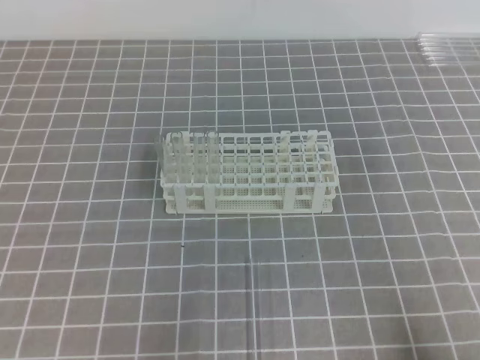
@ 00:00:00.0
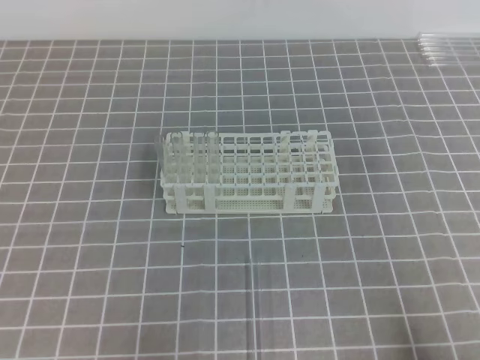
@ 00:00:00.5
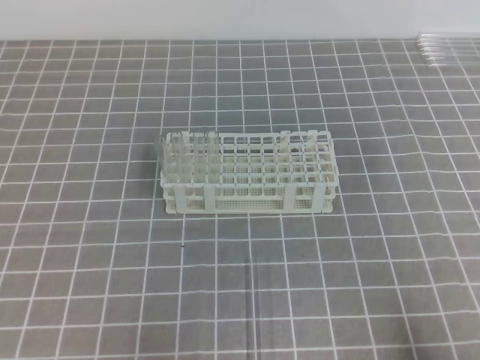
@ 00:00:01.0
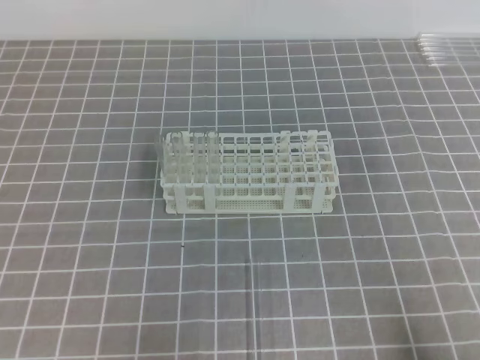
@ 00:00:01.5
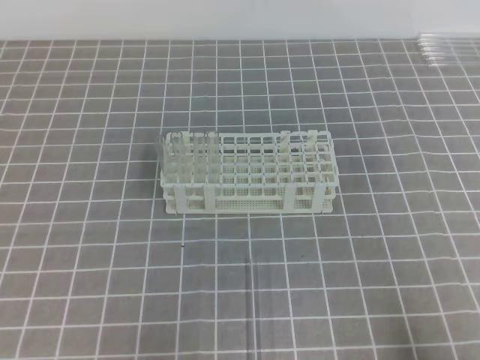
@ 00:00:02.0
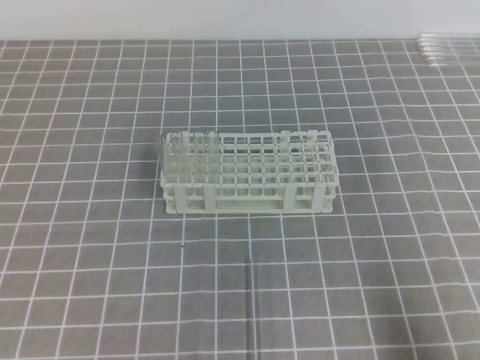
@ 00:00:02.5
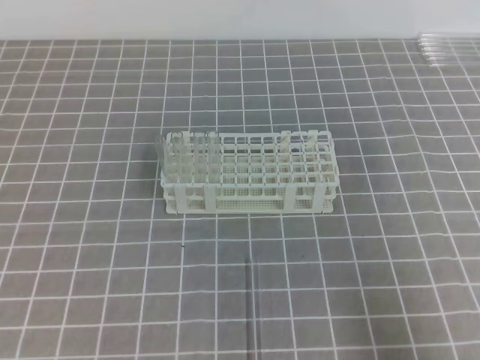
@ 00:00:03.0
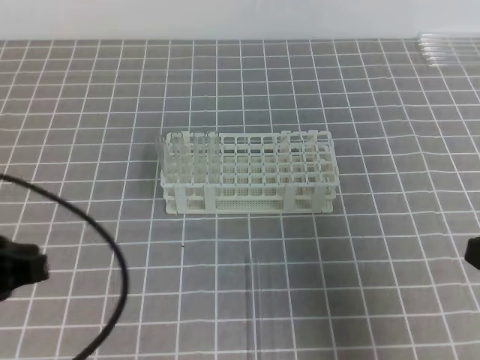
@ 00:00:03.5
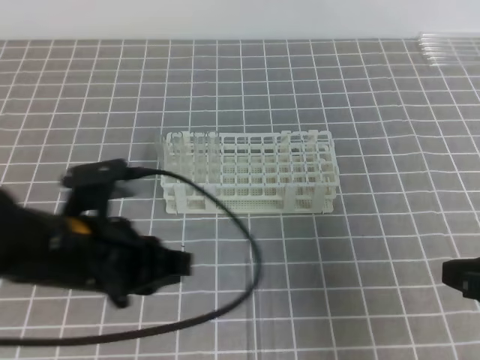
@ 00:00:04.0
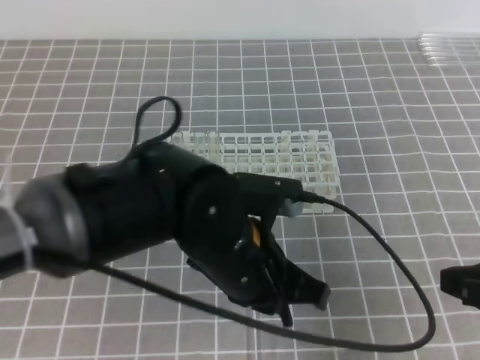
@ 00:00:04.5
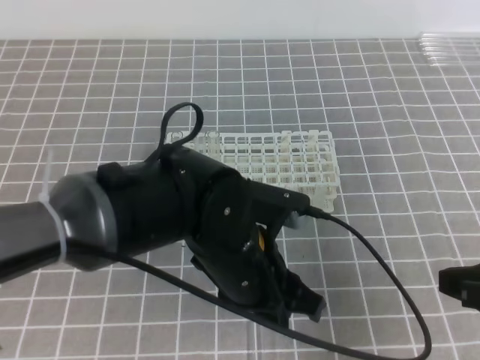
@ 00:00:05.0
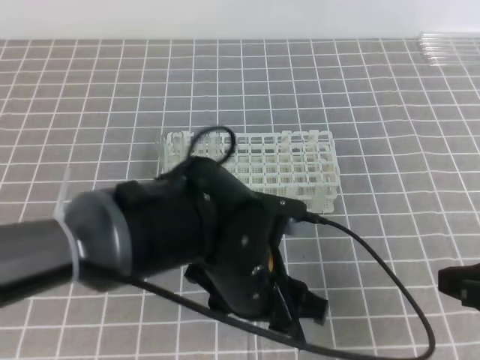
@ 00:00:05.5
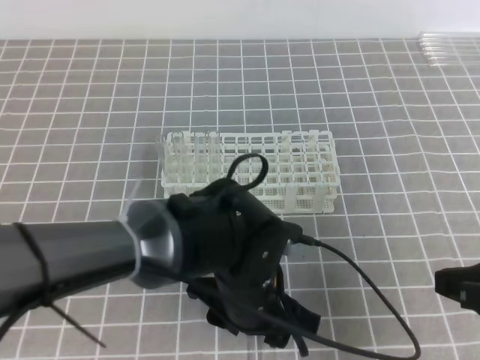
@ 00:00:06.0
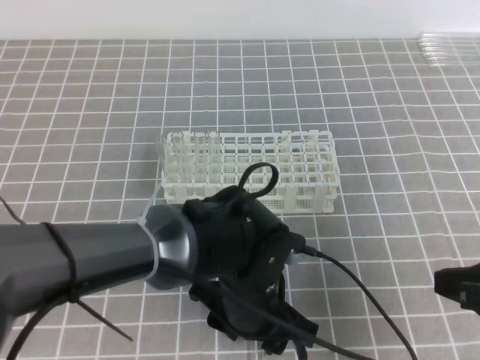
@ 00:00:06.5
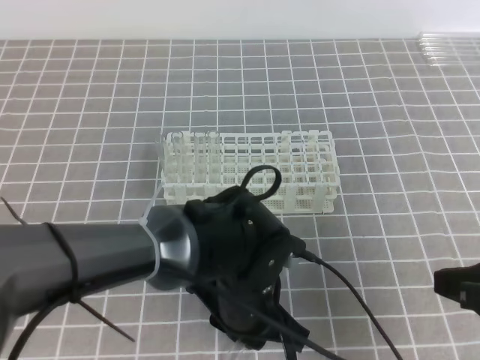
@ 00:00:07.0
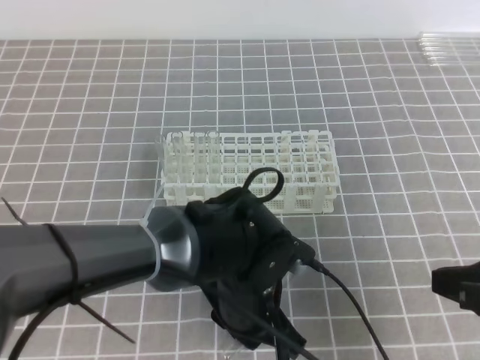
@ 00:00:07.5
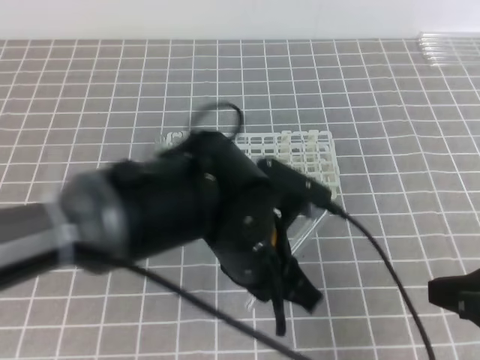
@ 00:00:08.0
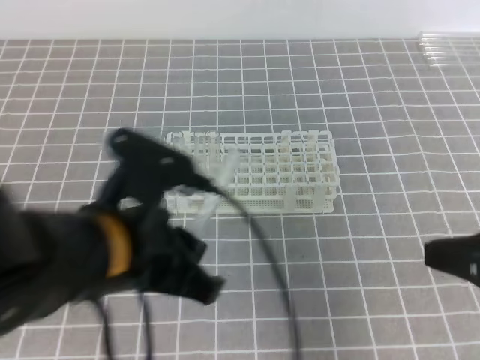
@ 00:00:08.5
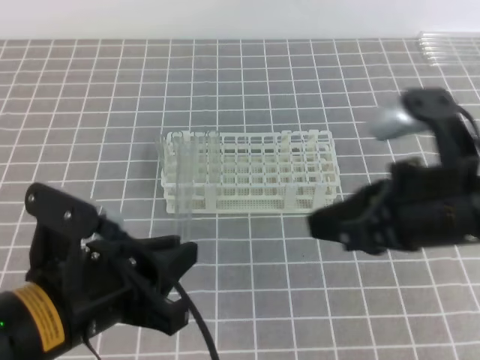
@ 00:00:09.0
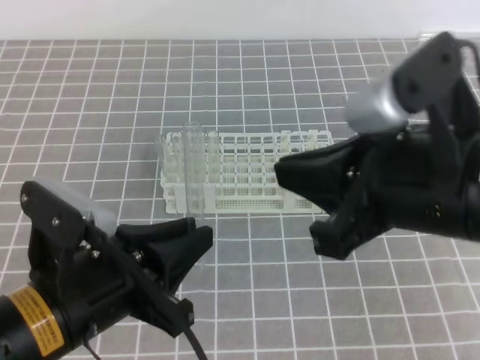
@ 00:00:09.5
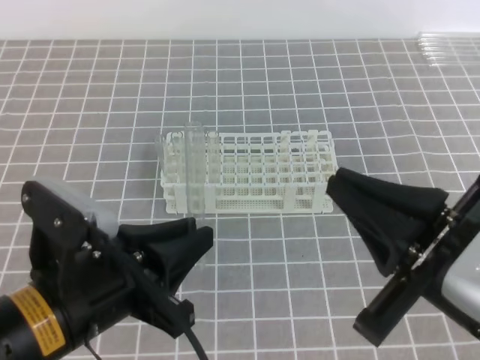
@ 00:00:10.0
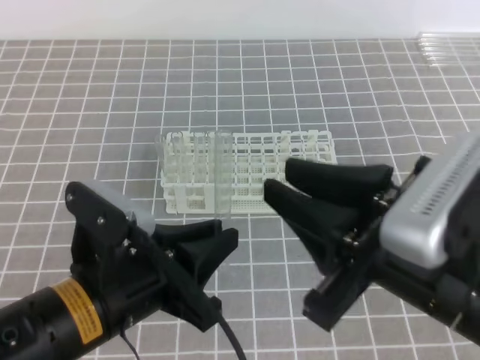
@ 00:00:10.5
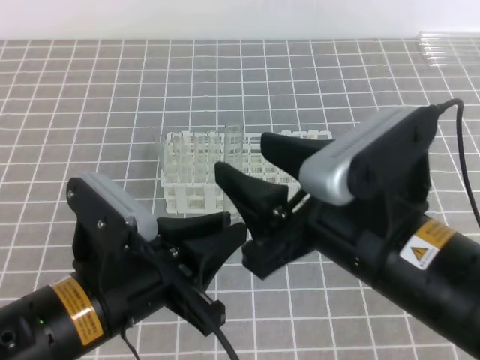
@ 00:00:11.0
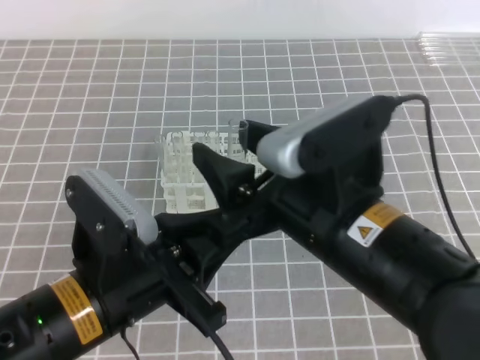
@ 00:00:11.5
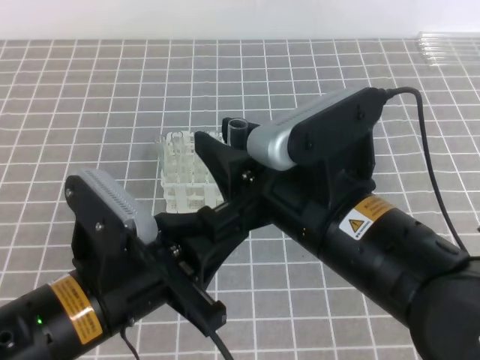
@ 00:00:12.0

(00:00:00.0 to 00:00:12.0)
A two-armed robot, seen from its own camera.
00:00:02.0 - 00:00:04.0: The left gripper shifts some 20 cm forward, to the right and upward, while the right gripper heads forward and upward, covering approximately 10 cm.
00:00:04.0 - 00:00:06.0: The left gripper is displaced to the right and downward by approximately 15 cm, and opens.
00:00:06.0 - 00:00:08.0: The left gripper is displaced upward by approximately 5 cm, and closes.
00:00:08.0 - 00:00:10.0: The left gripper goes roughly 15 cm to the left and backward. The right gripper shifts about 10 cm to the left and upward.
00:00:10.0 - 00:00:12.0: The right gripper moves to the left and forward, approximately 10 cm, and opens.

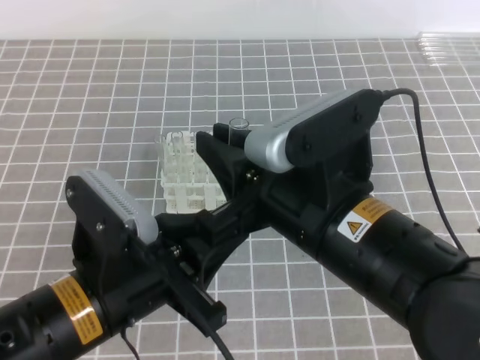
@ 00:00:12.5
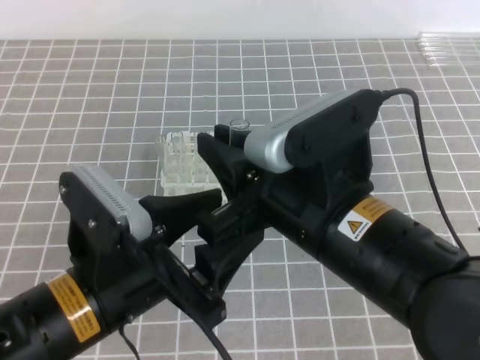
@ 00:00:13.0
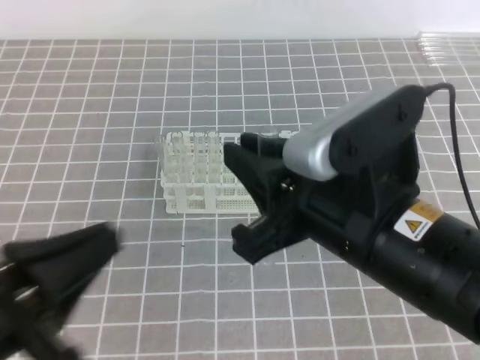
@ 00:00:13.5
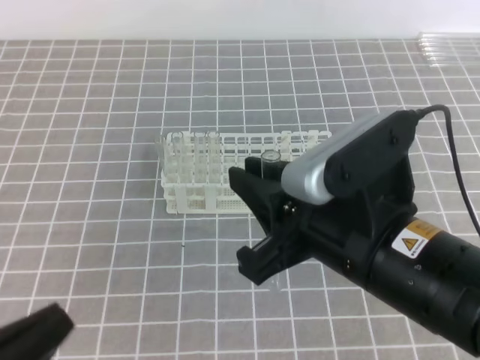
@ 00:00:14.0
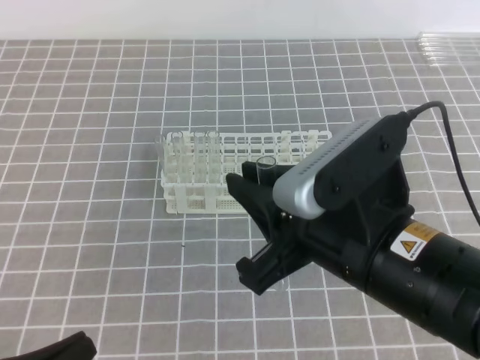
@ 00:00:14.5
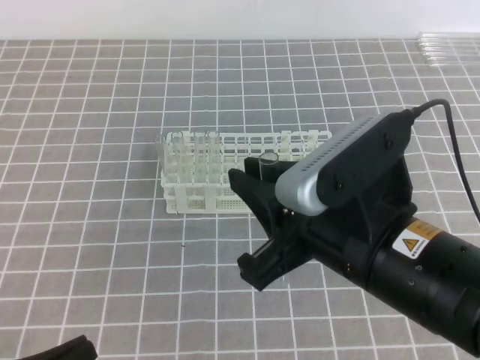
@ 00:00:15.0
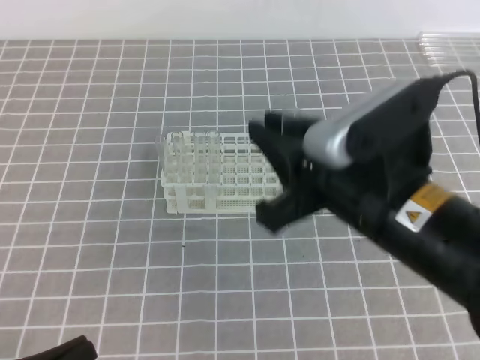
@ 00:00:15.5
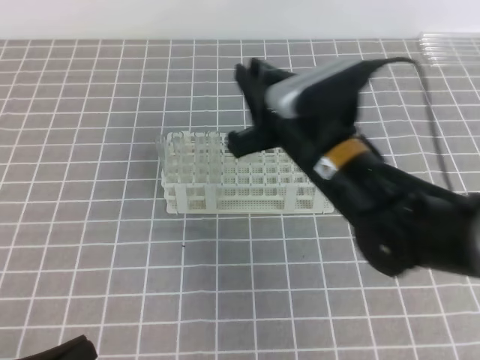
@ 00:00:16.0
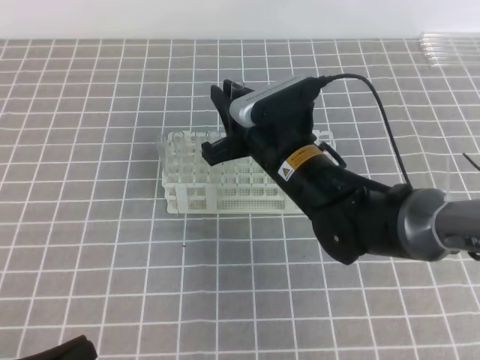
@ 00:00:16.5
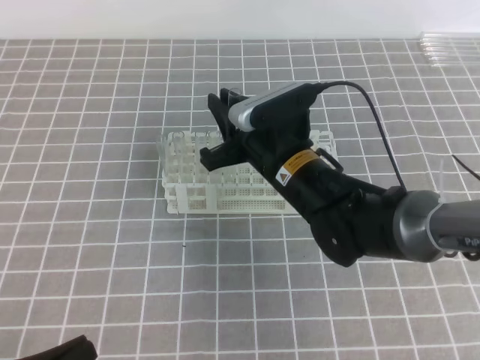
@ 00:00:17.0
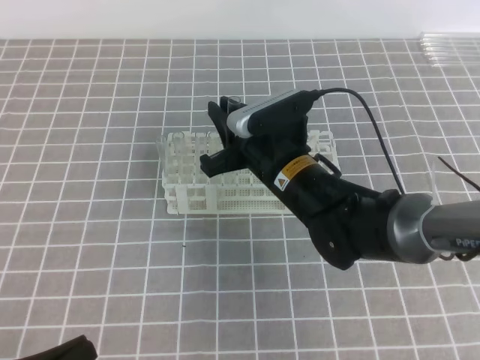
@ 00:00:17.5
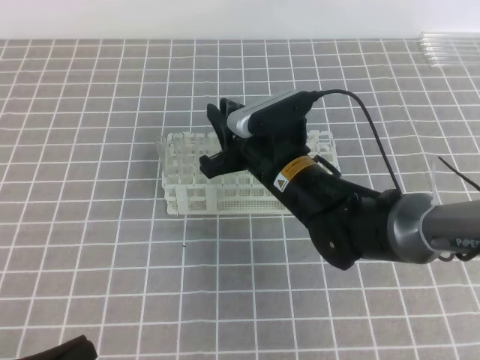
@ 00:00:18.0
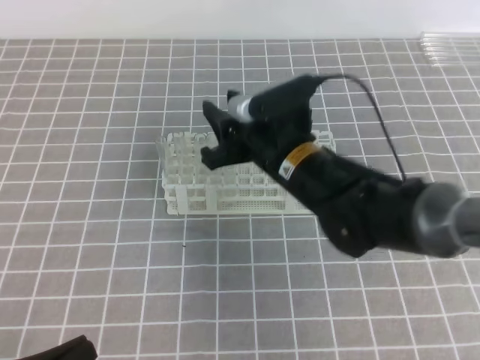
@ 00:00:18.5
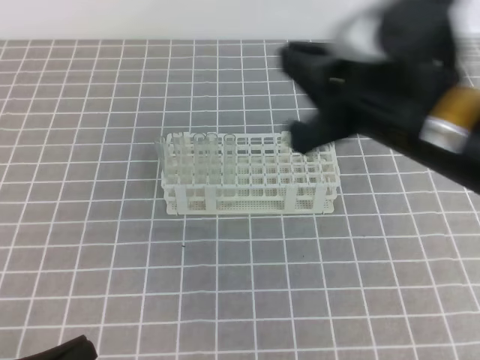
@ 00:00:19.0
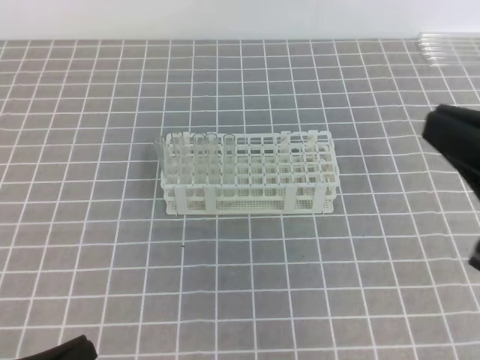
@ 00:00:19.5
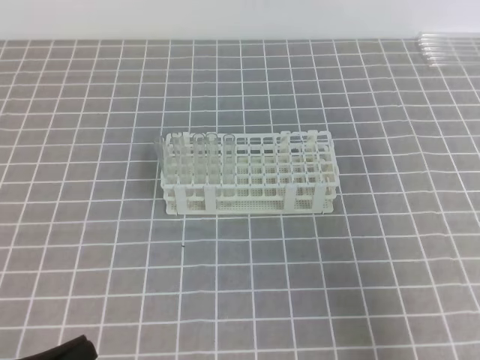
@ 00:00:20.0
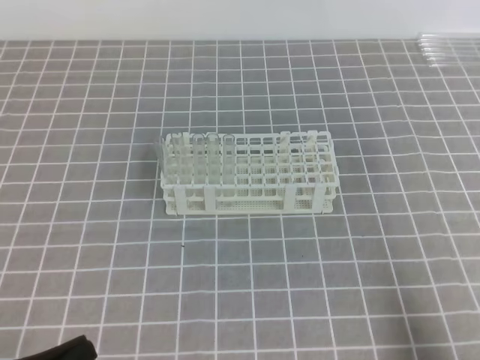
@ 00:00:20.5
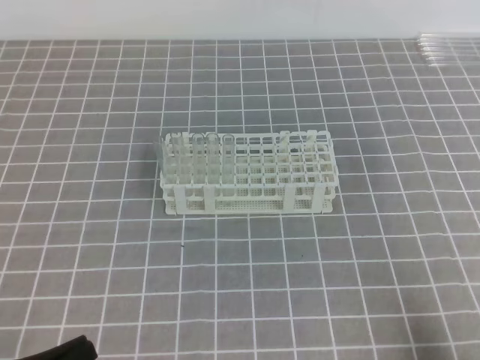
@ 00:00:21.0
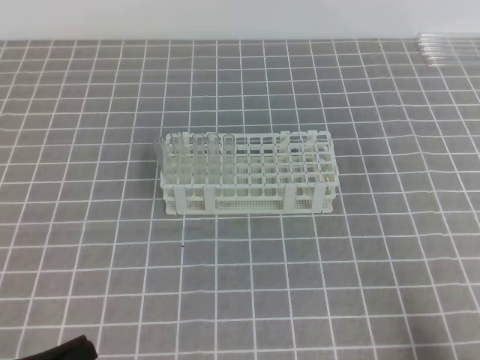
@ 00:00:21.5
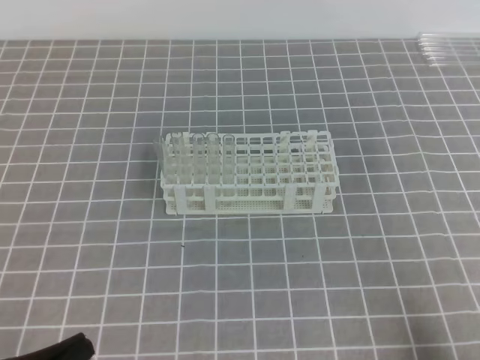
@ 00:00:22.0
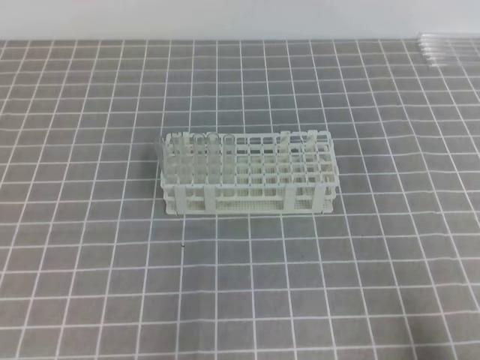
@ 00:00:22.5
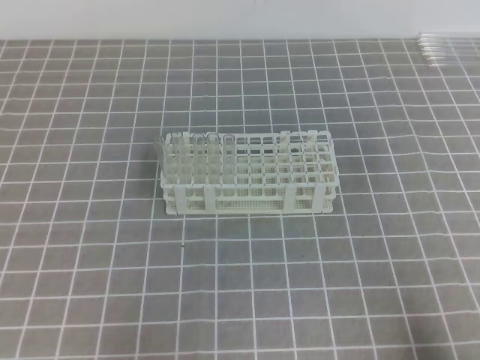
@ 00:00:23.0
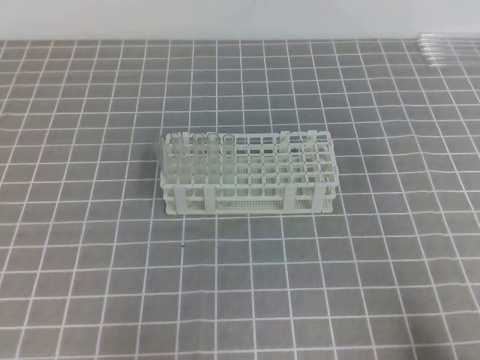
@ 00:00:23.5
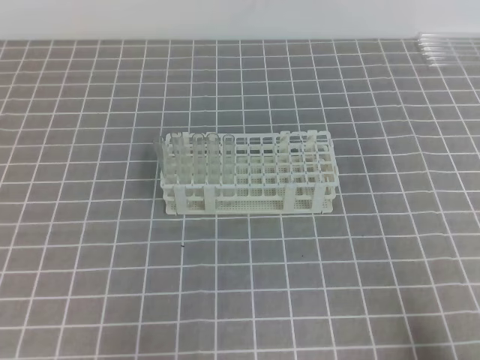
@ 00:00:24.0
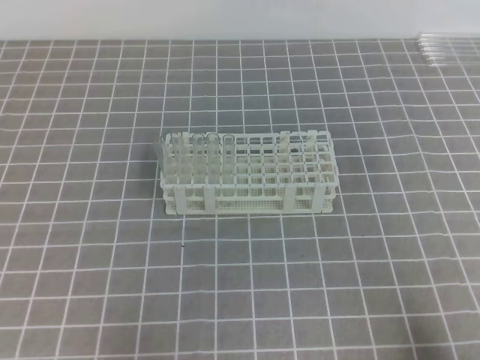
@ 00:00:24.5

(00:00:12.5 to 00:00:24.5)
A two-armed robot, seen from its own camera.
00:00:12.5 - 00:00:14.5: The left gripper travels to the left, backward and downward by some 15 cm, and opens, then closes again.
00:00:14.5 - 00:00:16.5: The right gripper moves forward and downward, approximately 20 cm.
00:00:16.5 - 00:00:18.5: The right gripper opens.
00:00:18.5 - 00:00:20.5: The right gripper heads to the right and backward, covering approximately 35 cm, and closes.
